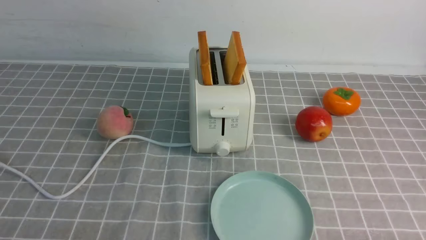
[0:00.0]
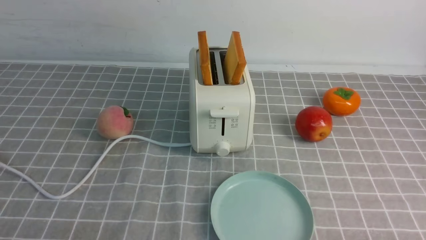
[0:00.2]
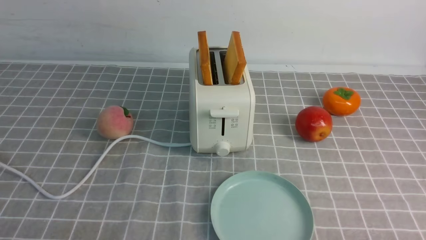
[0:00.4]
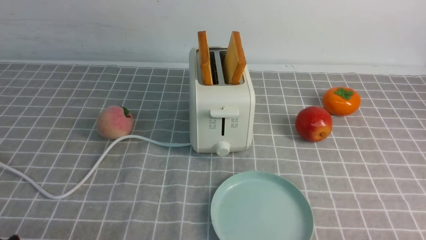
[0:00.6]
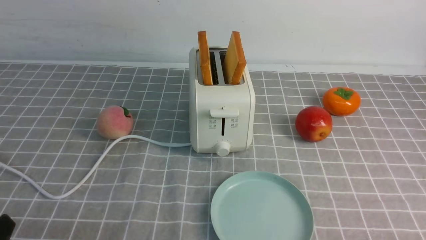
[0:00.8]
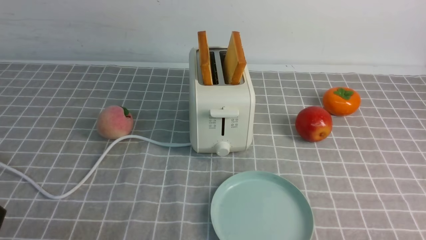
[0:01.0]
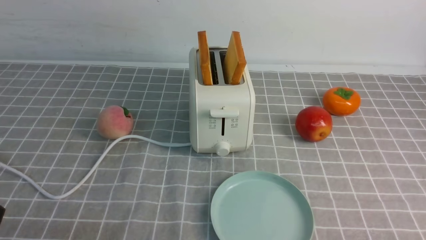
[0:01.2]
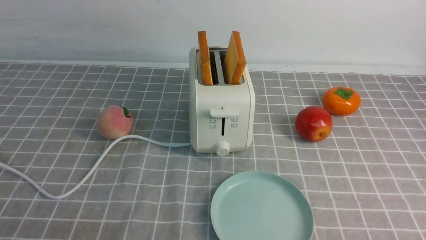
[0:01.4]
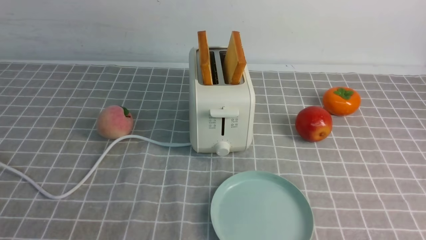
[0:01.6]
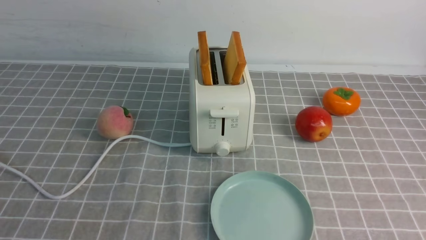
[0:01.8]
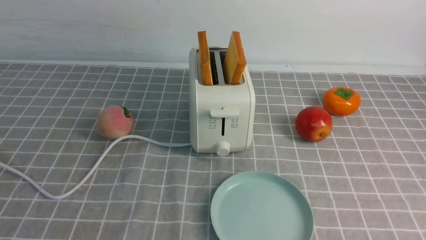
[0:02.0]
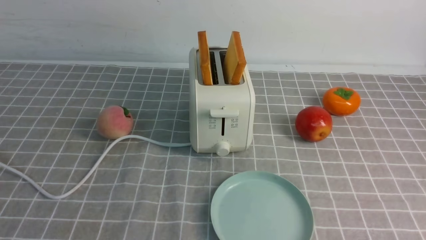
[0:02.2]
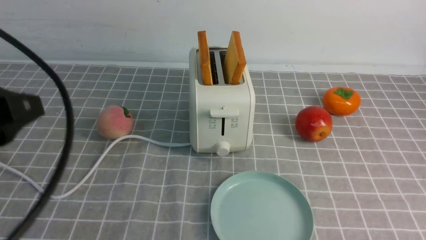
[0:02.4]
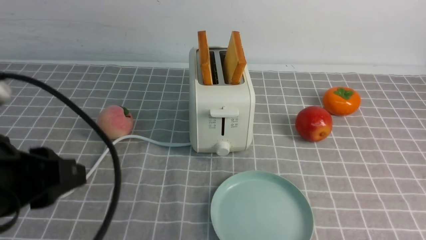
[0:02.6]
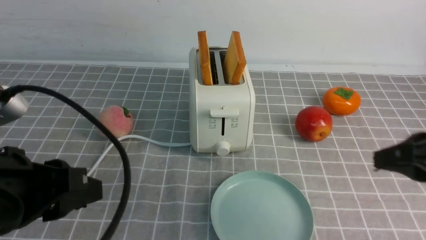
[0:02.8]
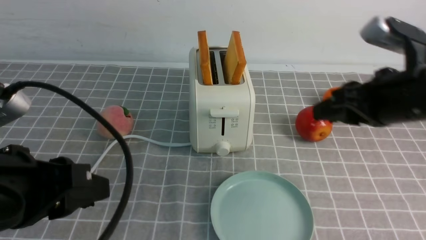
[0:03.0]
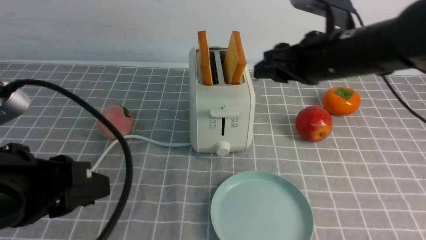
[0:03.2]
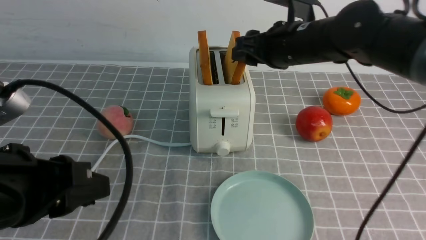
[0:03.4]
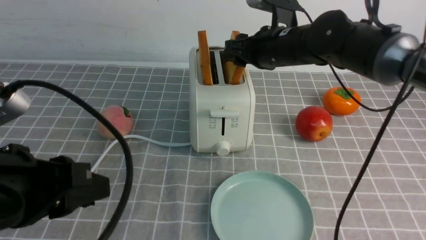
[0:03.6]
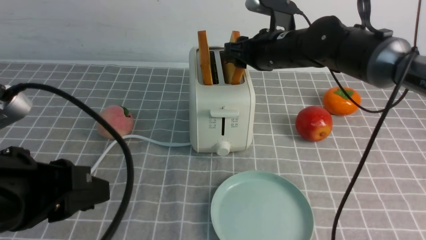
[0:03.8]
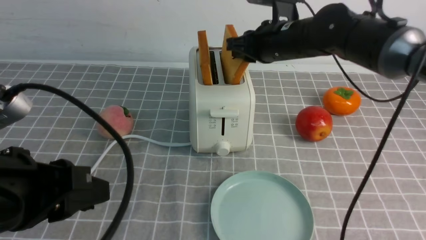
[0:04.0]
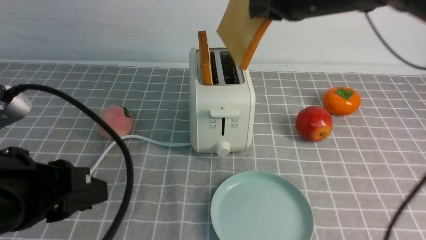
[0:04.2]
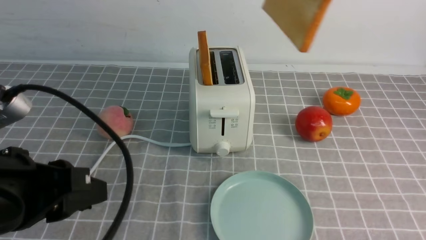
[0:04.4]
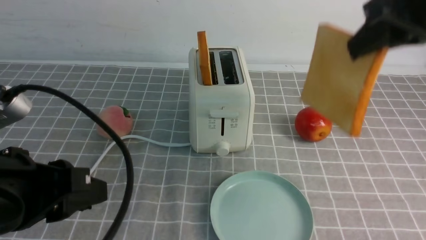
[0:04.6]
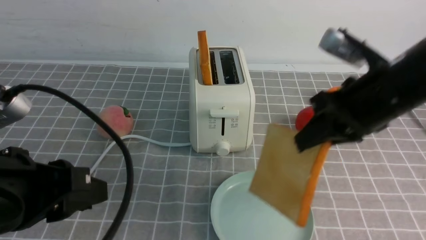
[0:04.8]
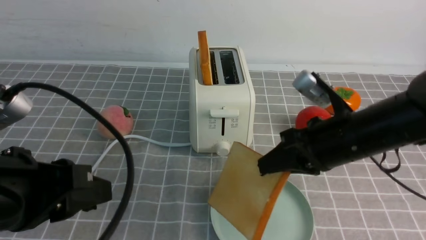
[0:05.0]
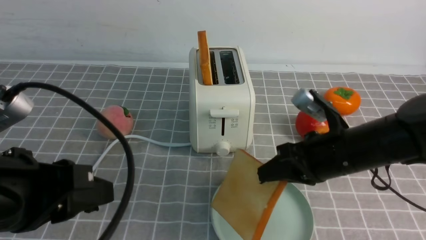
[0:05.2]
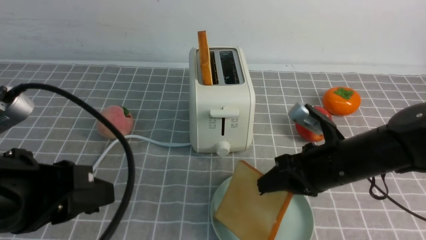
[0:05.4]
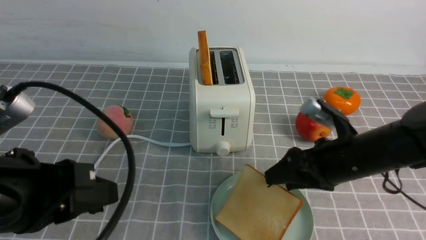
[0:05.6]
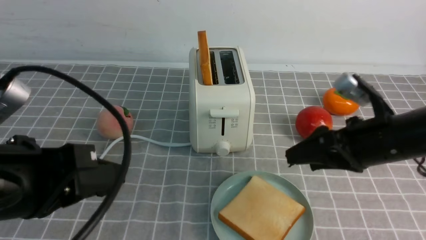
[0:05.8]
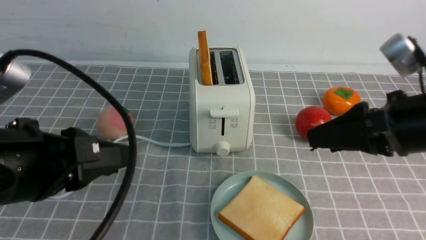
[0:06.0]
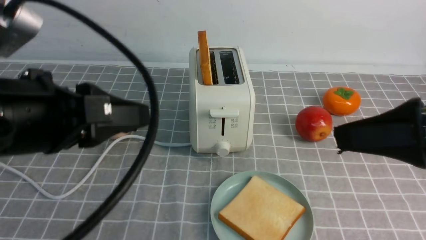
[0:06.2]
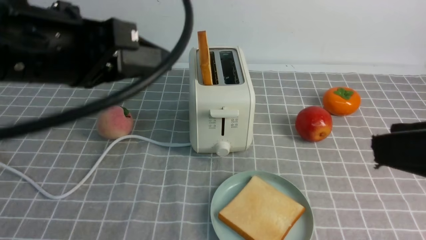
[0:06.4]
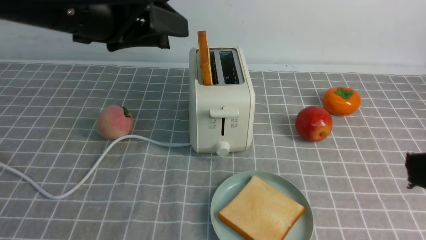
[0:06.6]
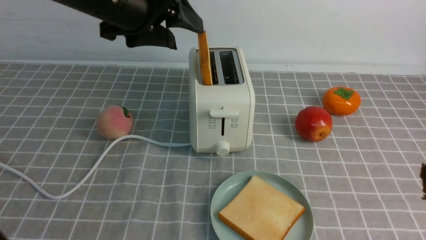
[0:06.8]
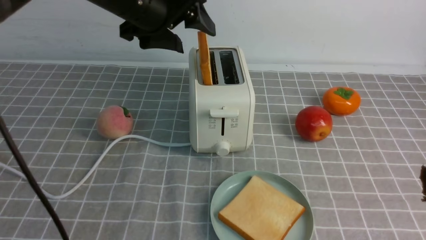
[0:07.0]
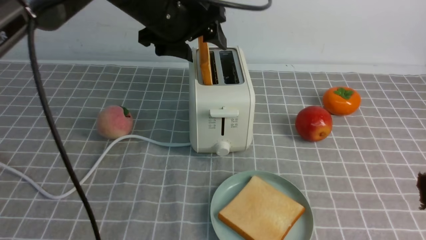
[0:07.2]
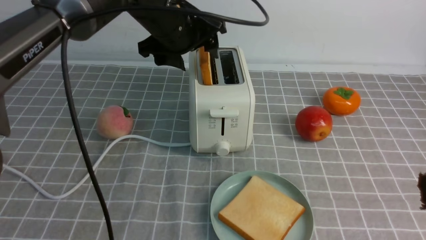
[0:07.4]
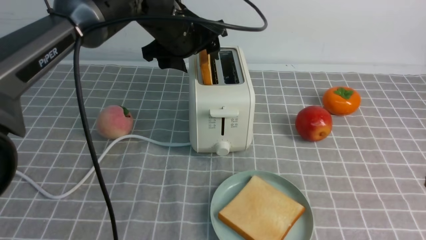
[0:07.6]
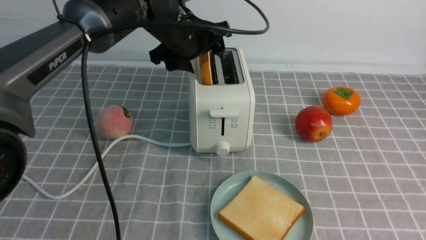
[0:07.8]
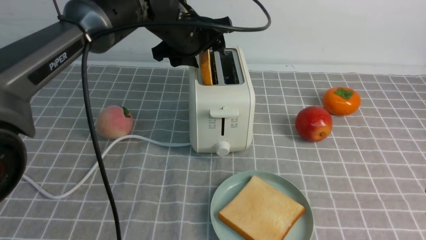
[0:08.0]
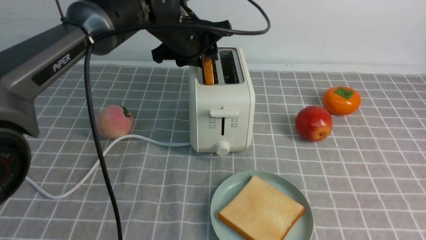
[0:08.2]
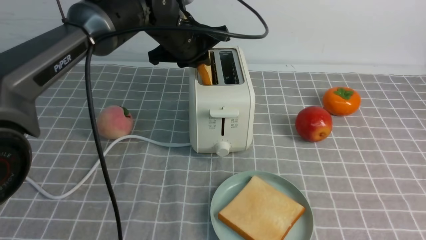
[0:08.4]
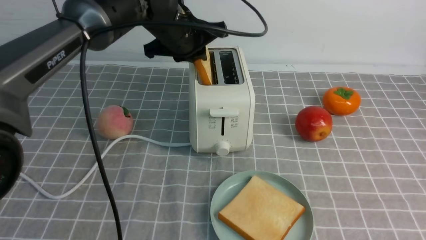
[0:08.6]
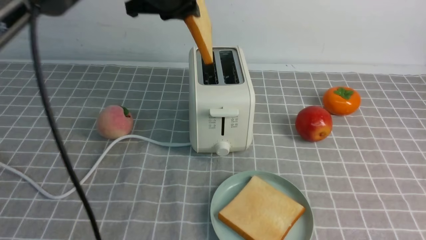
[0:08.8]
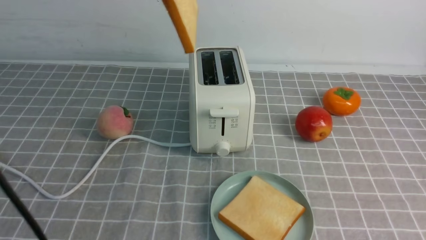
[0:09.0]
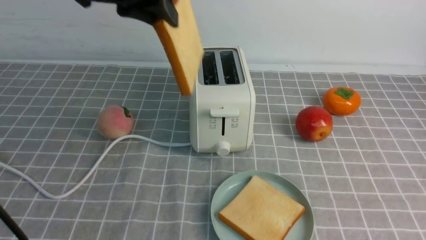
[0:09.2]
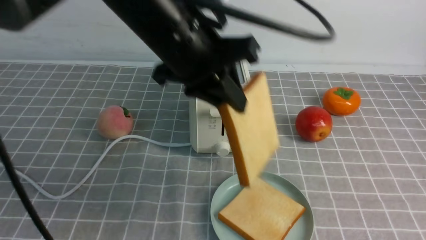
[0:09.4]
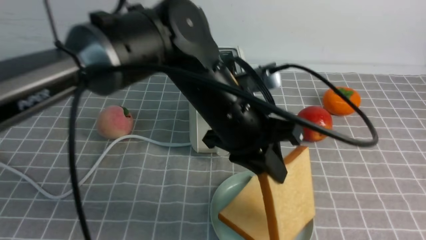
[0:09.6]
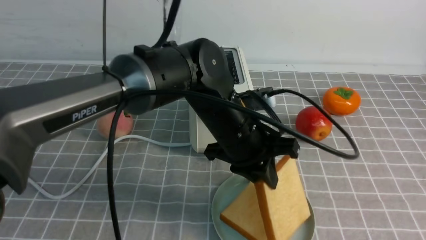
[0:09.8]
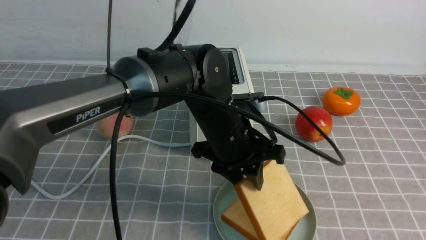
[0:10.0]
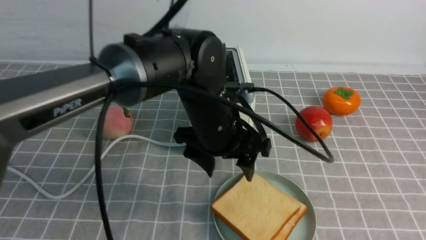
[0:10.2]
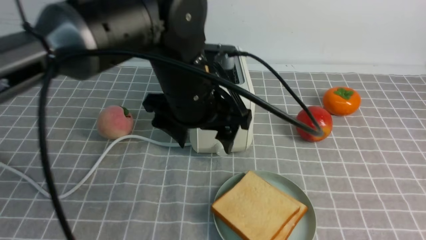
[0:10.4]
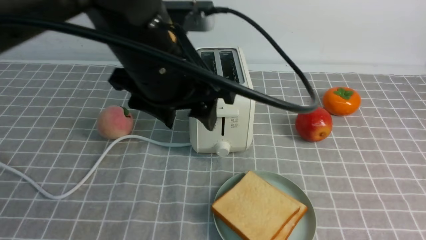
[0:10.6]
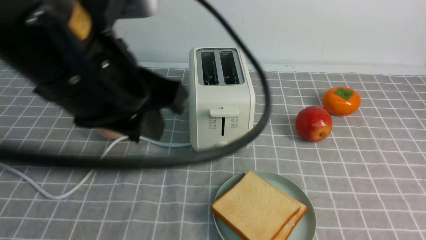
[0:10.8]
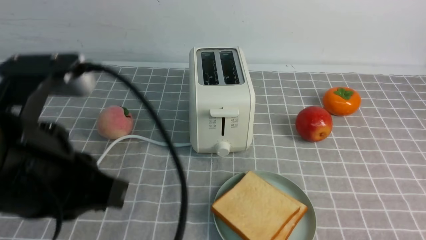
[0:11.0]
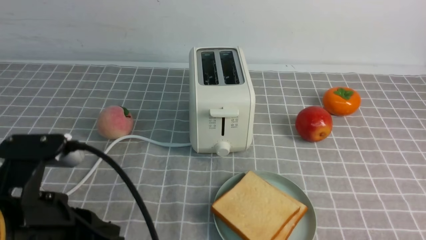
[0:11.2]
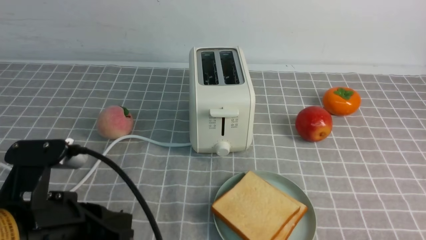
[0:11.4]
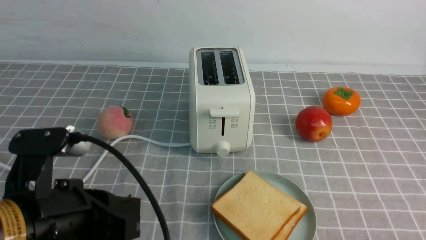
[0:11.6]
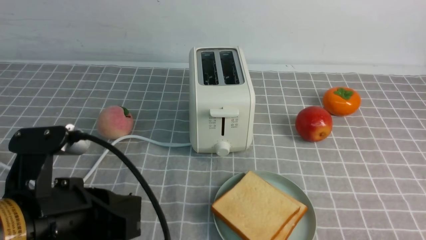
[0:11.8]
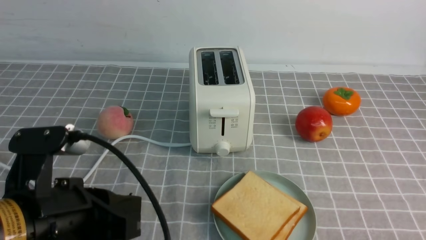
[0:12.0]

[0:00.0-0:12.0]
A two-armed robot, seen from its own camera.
Task of the whole recording: take toasted bread from bread machine on grey coffee table place on plate.
Step, 0:00.0 to 0:04.4: use the right arm to take out a slice of bread.
Step, 0:04.6 to 0:05.6: use the right arm to put a slice of bread into the plate.
Step, 0:05.8 to 0:08.8: use the left arm to take out a slice of bread.
Step, 0:09.0 to 0:10.2: use the left arm to put a slice of bread into the empty plate.
0:01.6 to 0:03.0: The right gripper heads forward and to the left, covering approximately 30 cm; the left gripper heads forward and to the right, covering roughly 15 cm, and moves some 15 cm upward and comes back.
0:03.0 to 0:04.4: The right gripper is displaced upward by roughly 10 cm, moves roughly 15 cm forward and comes back, and closes up.
0:04.4 to 0:06.0: The right gripper is displaced downward and backward by approximately 15 cm, and opens up.
0:06.0 to 0:07.6: The right gripper goes roughly 15 cm backward and upward; the left gripper travels forward and to the right by about 30 cm, and opens.
0:07.6 to 0:09.0: The left gripper shifts about 15 cm upward and backward, and closes its fingers.
0:09.0 to 0:10.4: The right gripper closes; the left gripper is displaced downward, to the right and backward by roughly 15 cm, and opens its fingers.
0:10.4 to 0:12.0: The right gripper shifts approximately 15 cm downward, and closes its fingers, while the left gripper goes some 20 cm backward, to the left and downward, and closes.

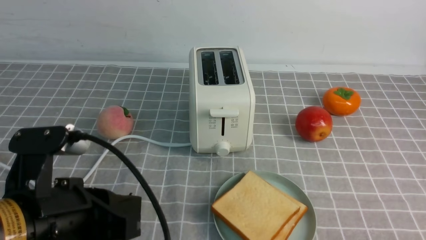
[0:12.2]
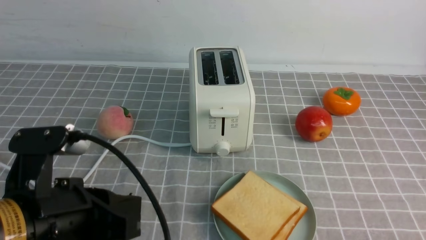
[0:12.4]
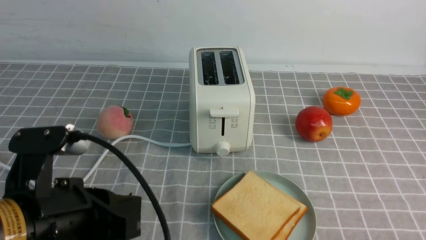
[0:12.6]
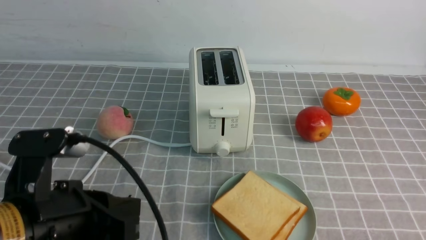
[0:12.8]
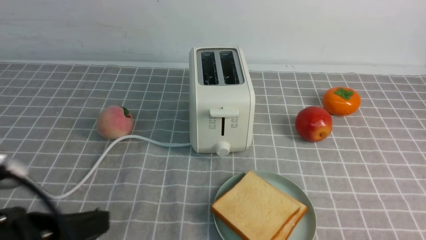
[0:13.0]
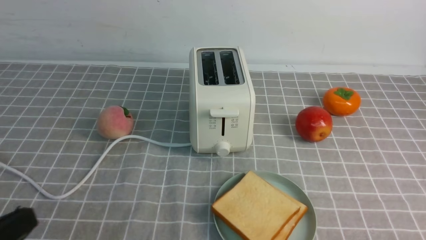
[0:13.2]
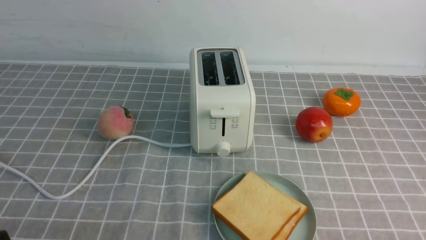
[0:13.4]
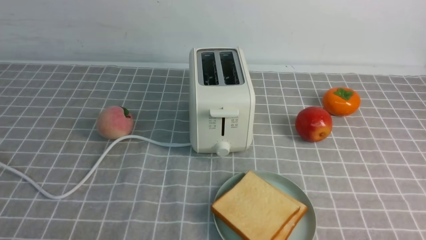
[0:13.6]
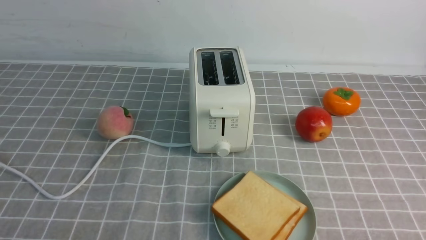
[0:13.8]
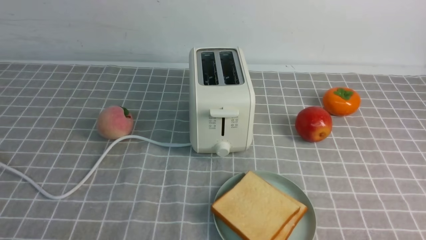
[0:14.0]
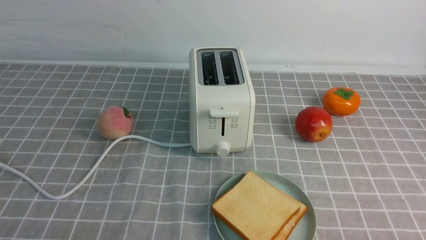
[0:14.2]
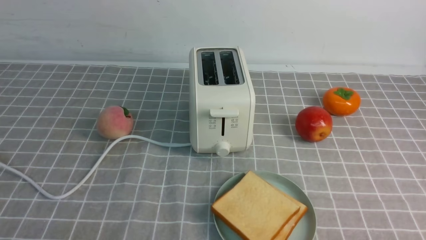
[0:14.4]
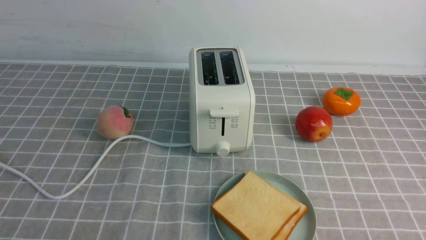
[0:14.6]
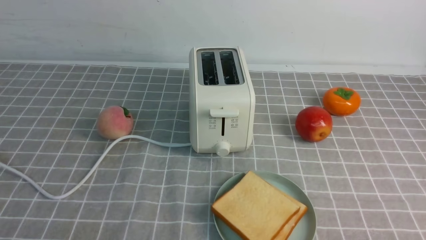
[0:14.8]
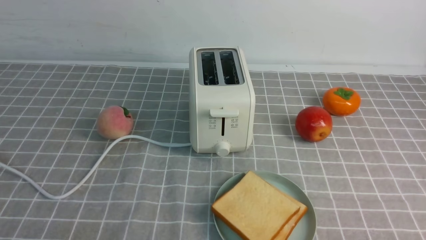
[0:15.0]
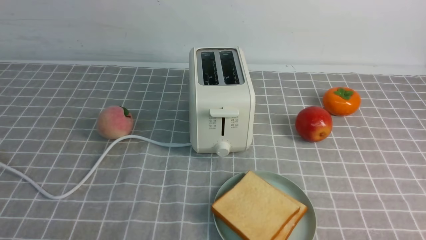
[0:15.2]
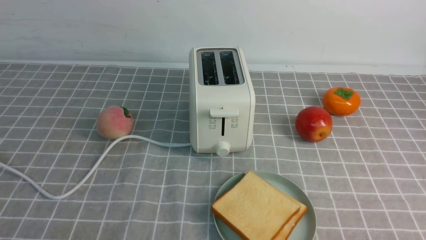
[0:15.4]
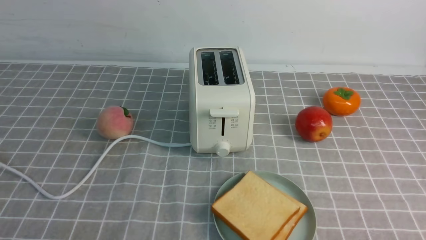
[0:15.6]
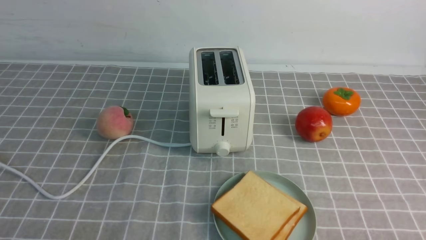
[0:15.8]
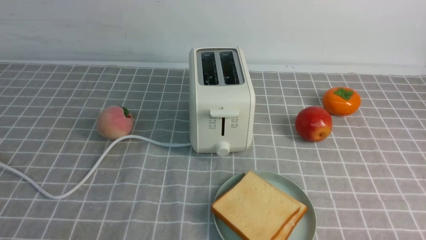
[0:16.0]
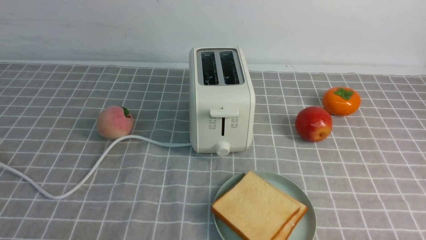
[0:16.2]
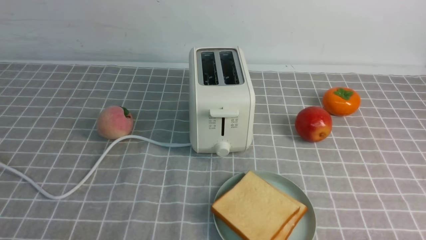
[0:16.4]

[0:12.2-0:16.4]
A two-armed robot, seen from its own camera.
Task of the whole recording: take toasted bread from bread machine on grey coffee table place on plate.
0:12.2 to 0:13.6: The left gripper heads downward, to the left and backward, covering roughly 15 cm.
0:13.6 to 0:15.0: The two grippers keep their place.
